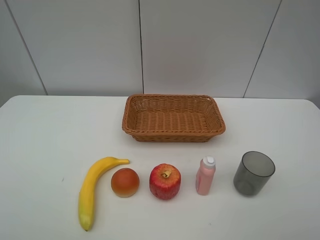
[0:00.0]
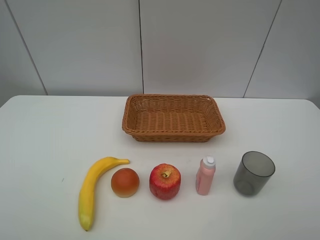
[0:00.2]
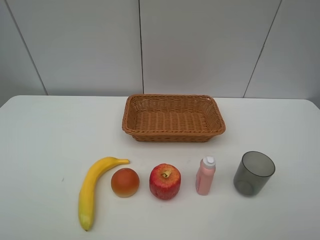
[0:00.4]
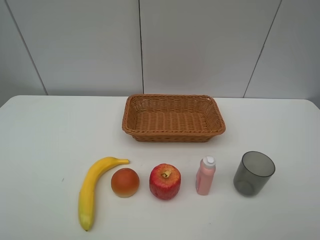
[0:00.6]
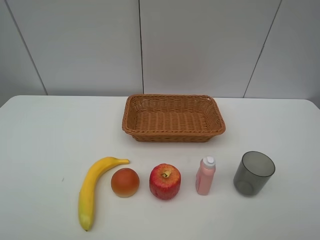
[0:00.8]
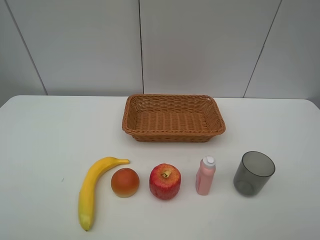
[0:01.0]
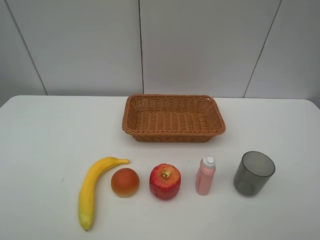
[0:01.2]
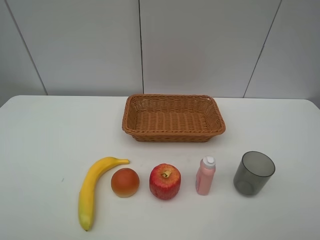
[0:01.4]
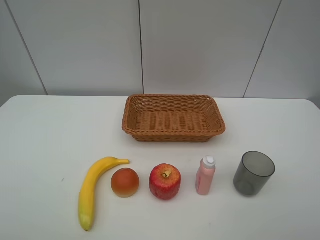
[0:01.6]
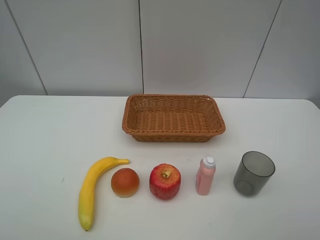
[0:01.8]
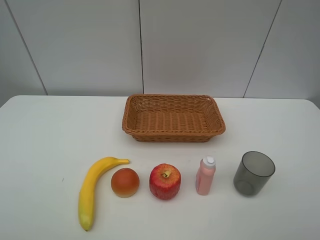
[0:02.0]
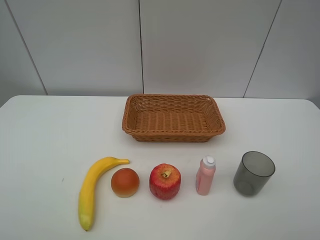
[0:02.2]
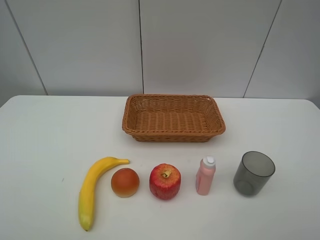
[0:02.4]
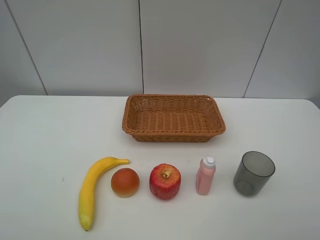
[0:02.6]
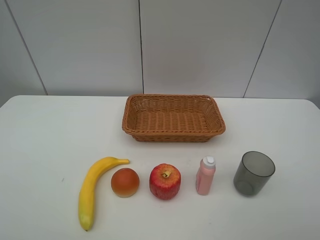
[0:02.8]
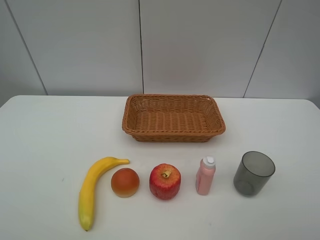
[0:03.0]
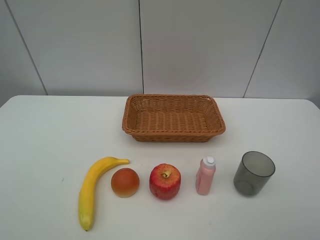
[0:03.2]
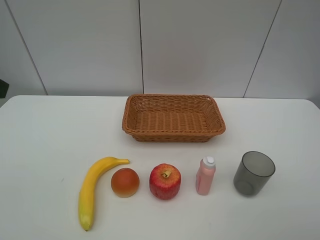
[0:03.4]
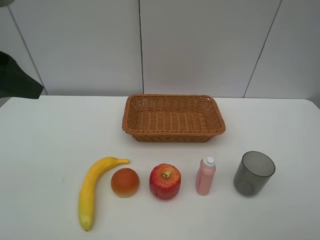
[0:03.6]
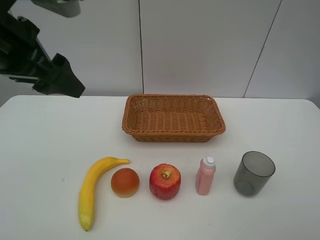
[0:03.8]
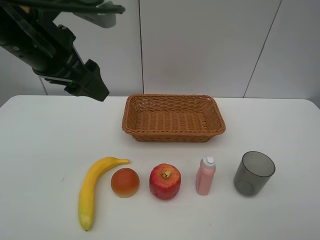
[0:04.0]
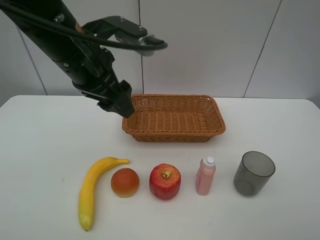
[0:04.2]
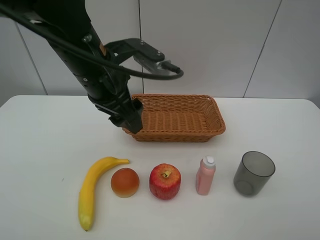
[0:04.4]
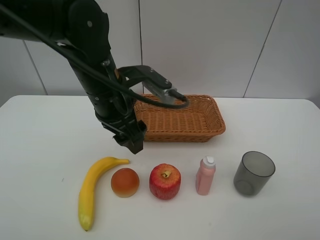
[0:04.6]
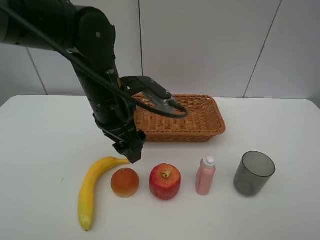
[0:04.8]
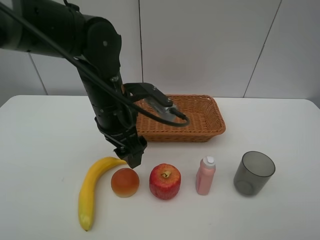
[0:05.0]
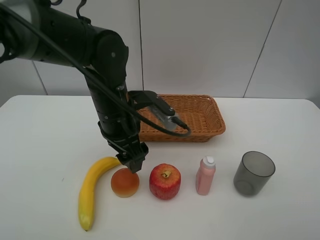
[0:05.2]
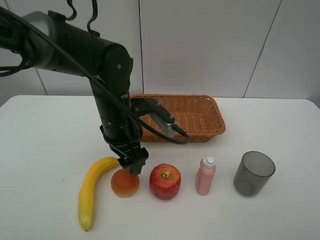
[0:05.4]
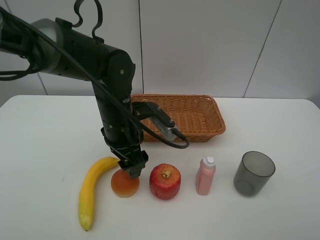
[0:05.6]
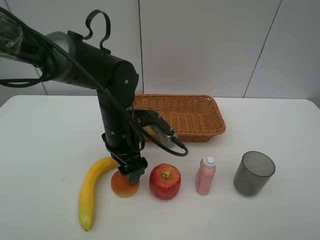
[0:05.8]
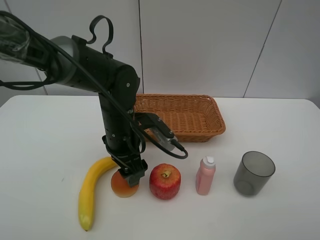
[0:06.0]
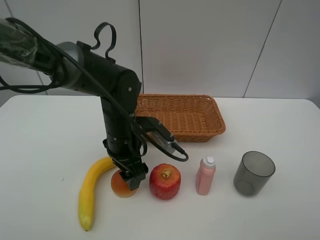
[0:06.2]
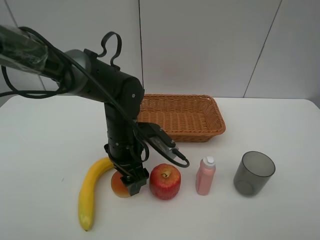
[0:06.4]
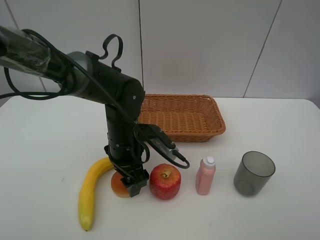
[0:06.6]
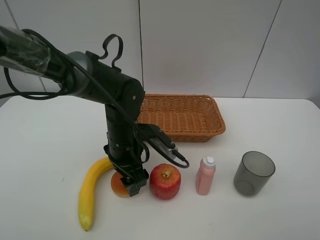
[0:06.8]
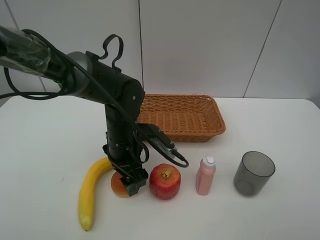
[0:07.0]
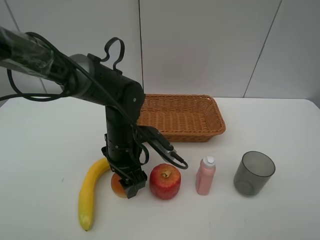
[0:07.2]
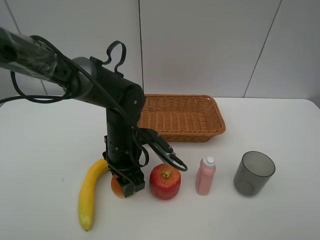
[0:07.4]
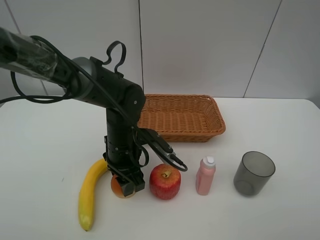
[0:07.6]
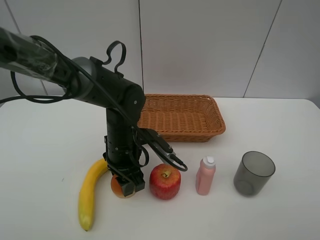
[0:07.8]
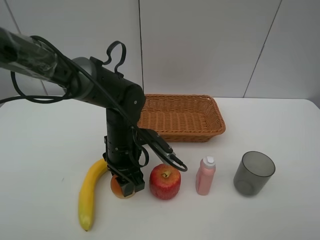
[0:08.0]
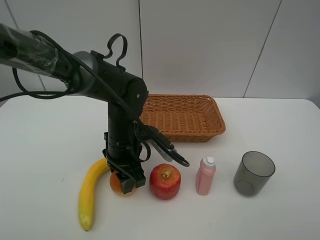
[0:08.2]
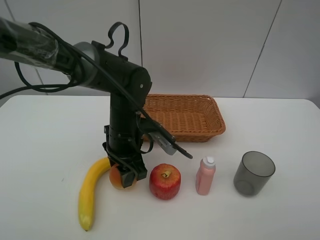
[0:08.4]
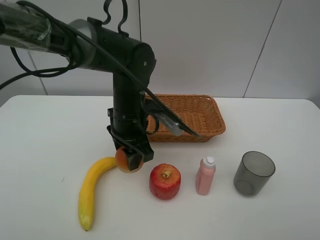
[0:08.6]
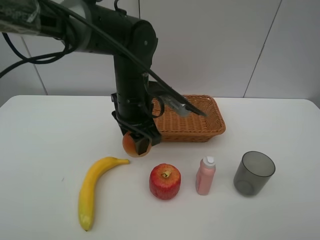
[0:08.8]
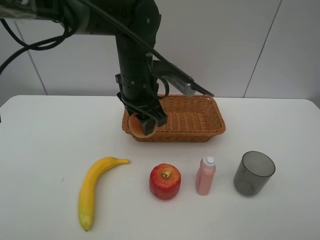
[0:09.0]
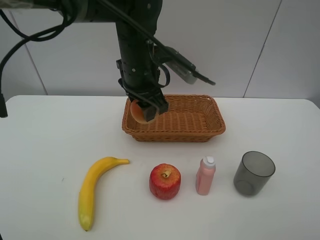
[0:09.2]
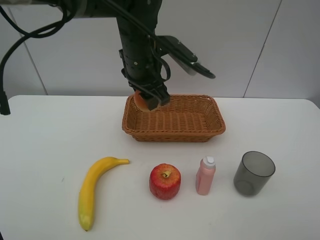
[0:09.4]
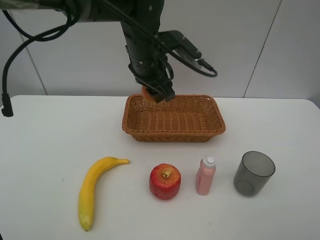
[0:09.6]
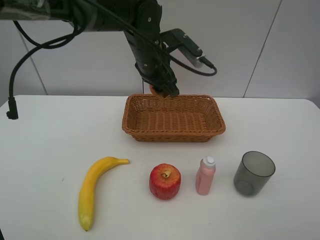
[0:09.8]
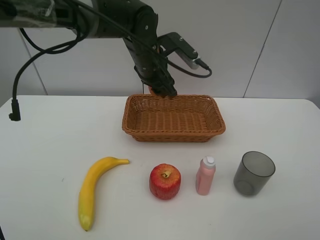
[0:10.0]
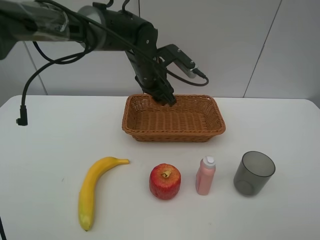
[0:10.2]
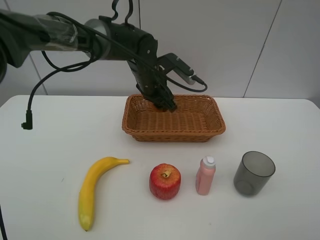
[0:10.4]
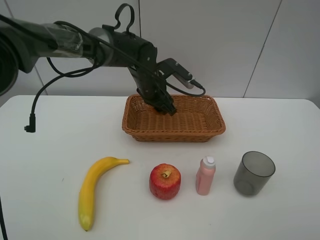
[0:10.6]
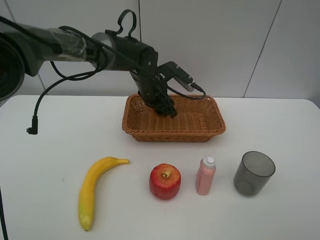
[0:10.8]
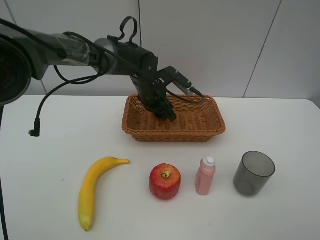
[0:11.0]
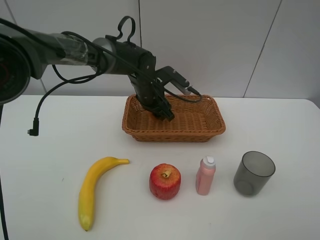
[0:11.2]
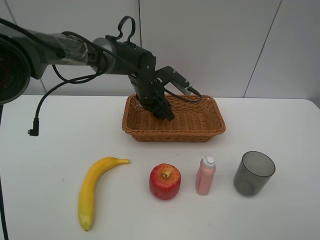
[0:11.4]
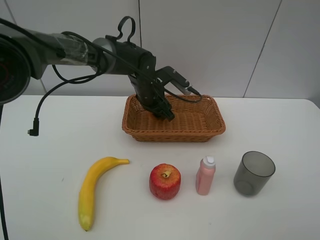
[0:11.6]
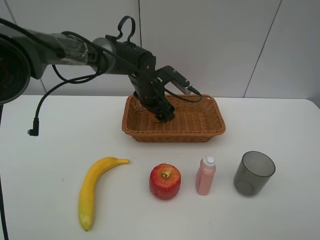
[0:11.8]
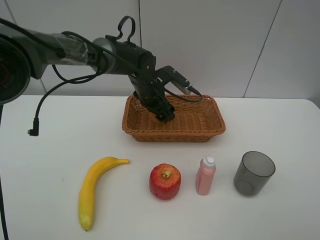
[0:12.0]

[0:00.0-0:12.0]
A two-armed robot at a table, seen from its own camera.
Task of the whole recording: randomly pick up an item from the table and put it in the basket.
Step, 0:00.0 to 0:08.0: Grasp the round bread with the left gripper.
0:00.0 to 0:01.6: Neither gripper changes place.
0:03.0 to 0:04.4: The left gripper moves to the right, forward and downward, about 30 cm.
0:04.4 to 0:06.0: The left gripper is displaced downward by approximately 10 cm, and opens.
0:06.0 to 0:07.6: The left gripper closes its fingers.
0:07.6 to 0:09.0: The left gripper travels upward and forward by approximately 15 cm.
0:09.0 to 0:10.4: The left gripper heads forward and downward, covering approximately 10 cm.
0:10.4 to 0:12.0: The left gripper opens its fingers.

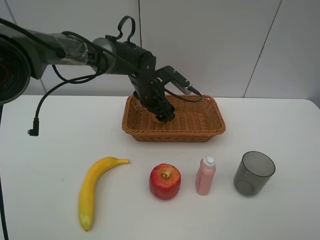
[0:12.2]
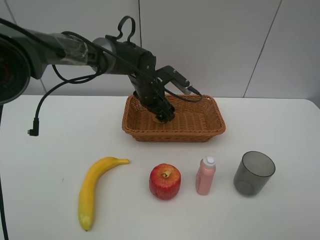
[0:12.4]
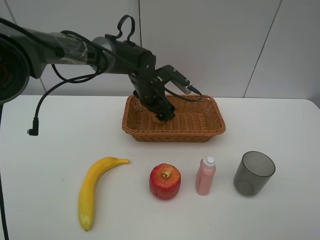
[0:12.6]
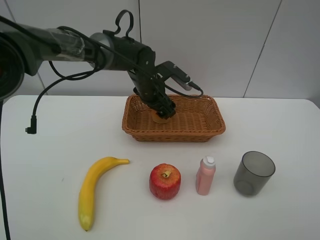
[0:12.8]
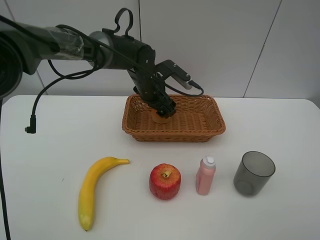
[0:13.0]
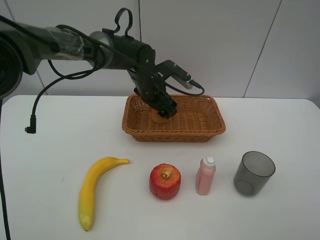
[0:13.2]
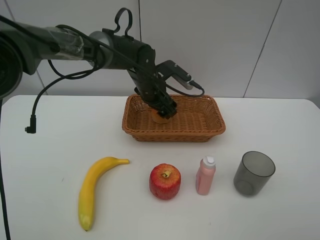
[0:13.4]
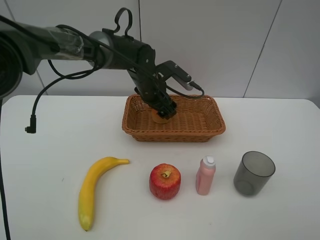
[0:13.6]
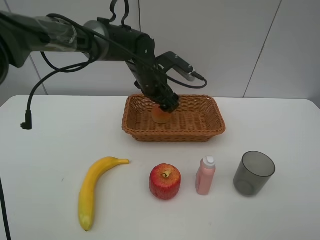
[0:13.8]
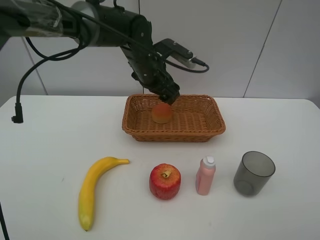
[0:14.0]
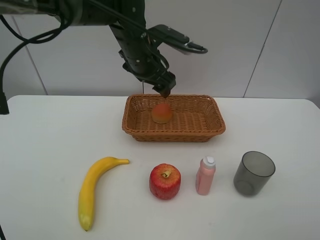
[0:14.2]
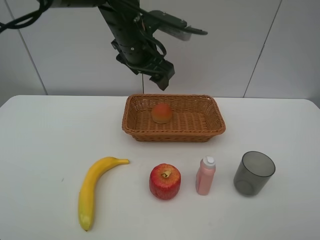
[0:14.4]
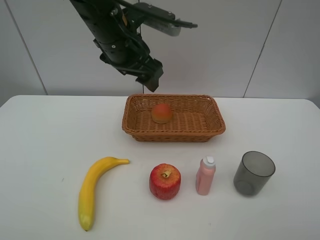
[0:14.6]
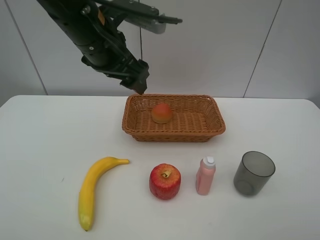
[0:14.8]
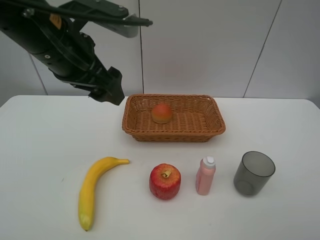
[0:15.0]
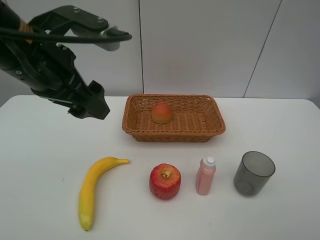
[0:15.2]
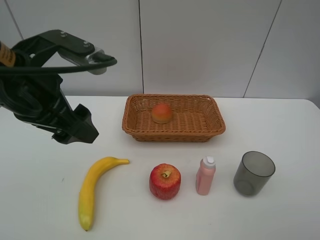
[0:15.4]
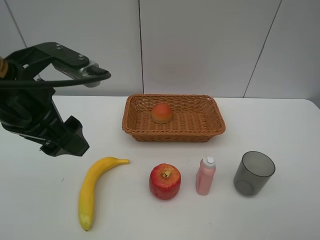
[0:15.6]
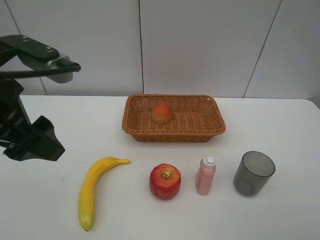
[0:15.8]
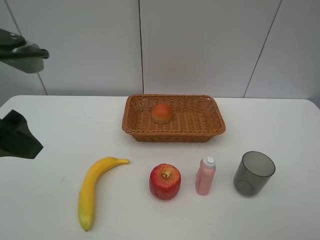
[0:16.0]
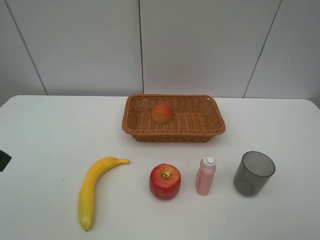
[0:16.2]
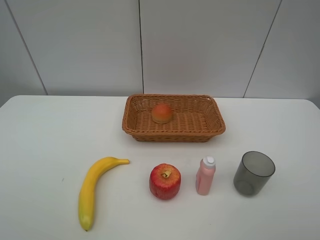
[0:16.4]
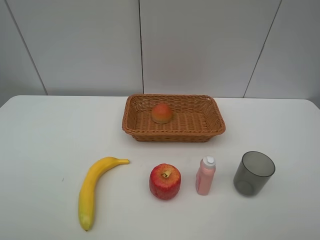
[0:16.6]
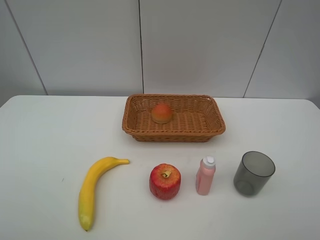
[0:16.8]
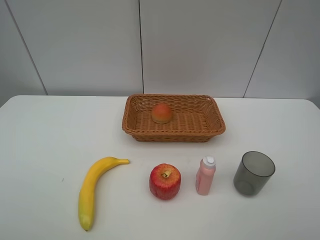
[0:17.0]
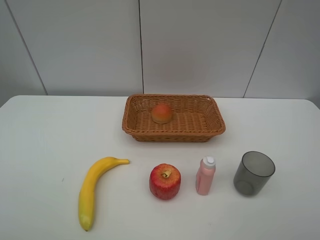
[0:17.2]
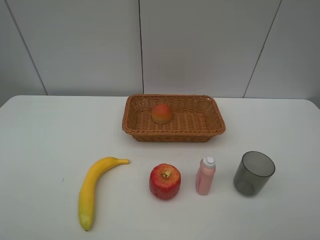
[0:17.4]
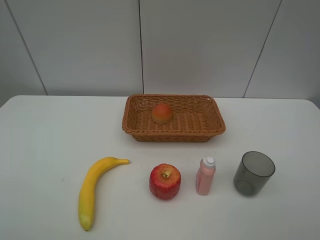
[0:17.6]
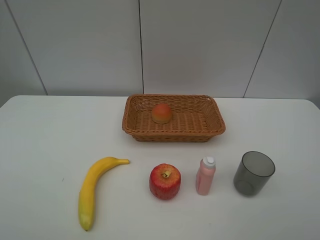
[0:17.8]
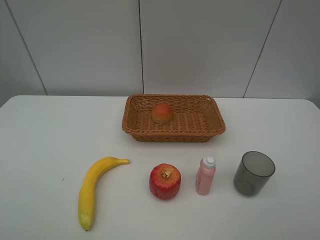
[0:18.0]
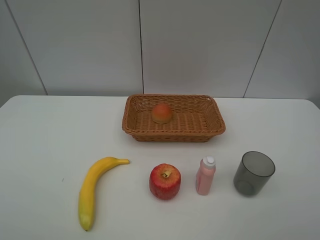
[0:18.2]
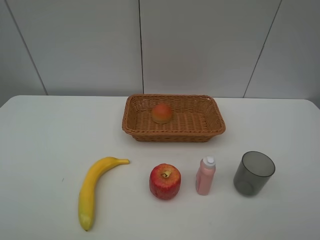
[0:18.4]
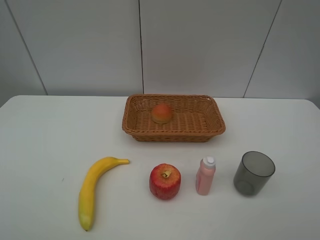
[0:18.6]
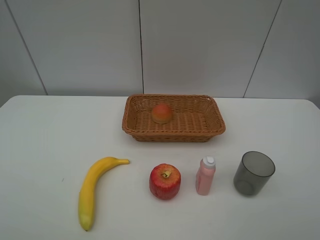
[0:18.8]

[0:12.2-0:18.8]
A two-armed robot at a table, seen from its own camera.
Task of the whole recording: randomly pick up an item from the table and put it in the basket.
0:12.2 to 0:13.8: The grippers make only small movements.
0:13.8 to 0:15.4: The left gripper is displaced backward, to the left and upward by some 30 cm.
0:15.4 to 0:17.2: The left gripper moves backward and to the left, some 20 cm.
